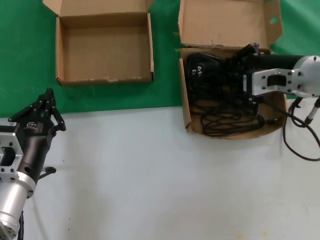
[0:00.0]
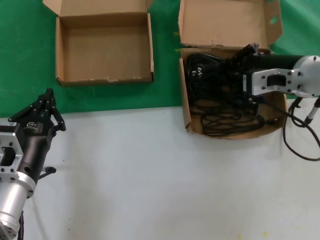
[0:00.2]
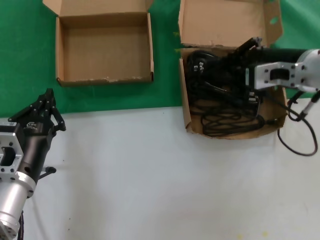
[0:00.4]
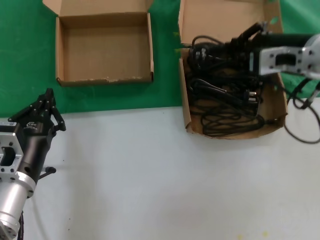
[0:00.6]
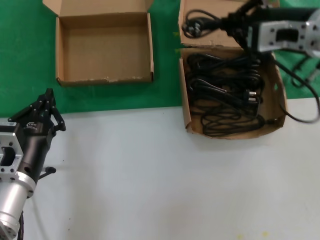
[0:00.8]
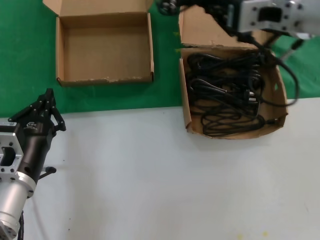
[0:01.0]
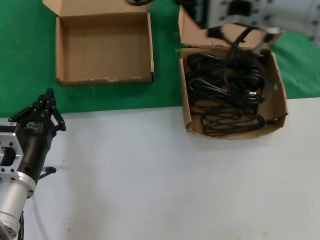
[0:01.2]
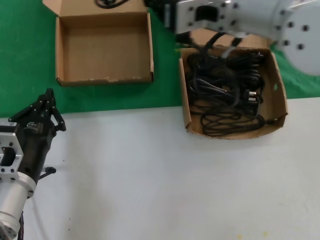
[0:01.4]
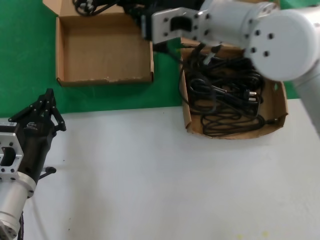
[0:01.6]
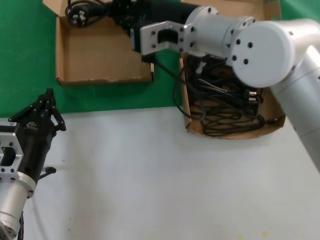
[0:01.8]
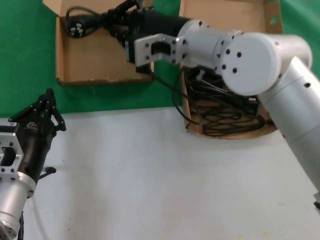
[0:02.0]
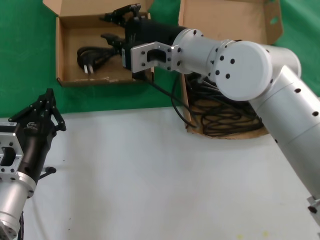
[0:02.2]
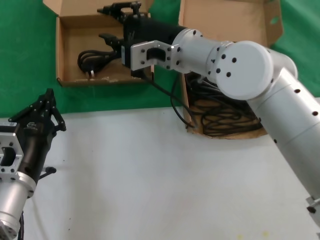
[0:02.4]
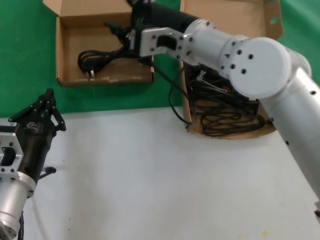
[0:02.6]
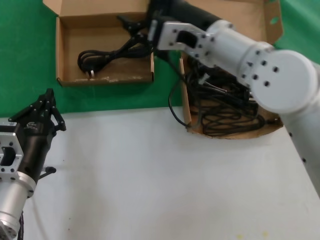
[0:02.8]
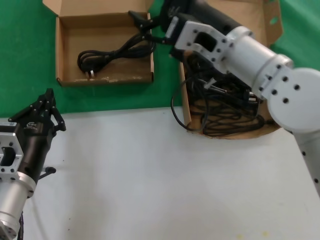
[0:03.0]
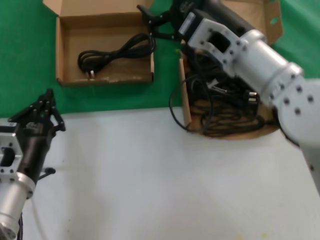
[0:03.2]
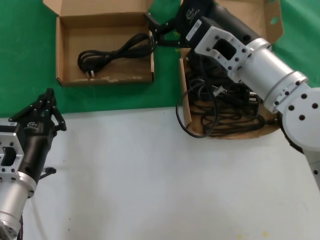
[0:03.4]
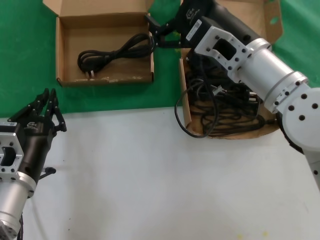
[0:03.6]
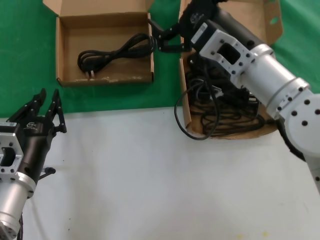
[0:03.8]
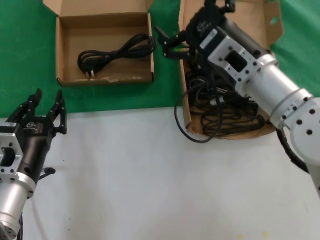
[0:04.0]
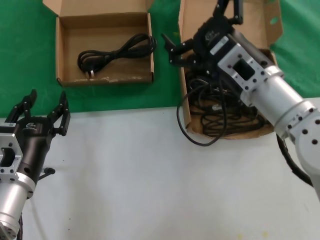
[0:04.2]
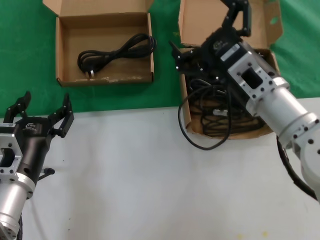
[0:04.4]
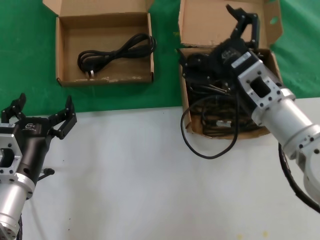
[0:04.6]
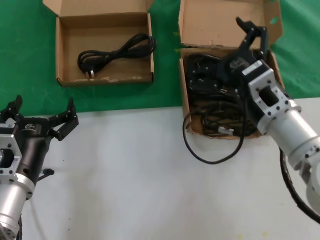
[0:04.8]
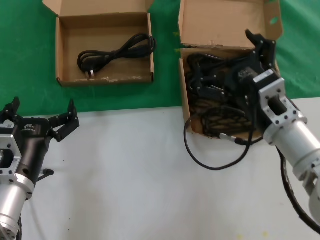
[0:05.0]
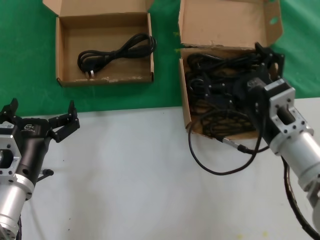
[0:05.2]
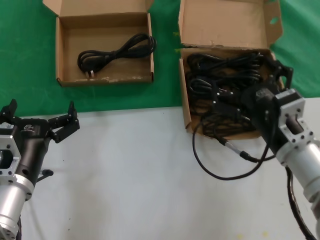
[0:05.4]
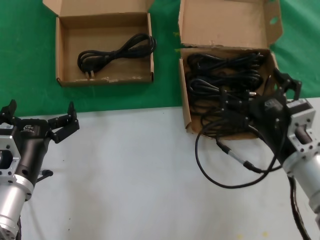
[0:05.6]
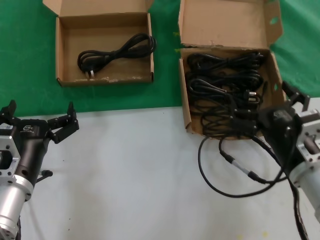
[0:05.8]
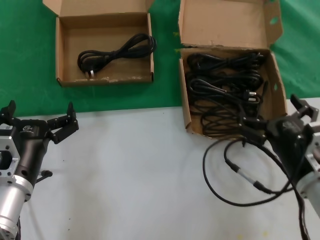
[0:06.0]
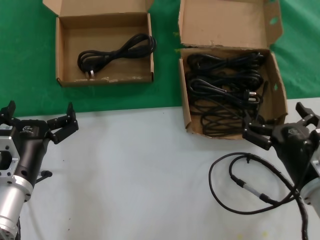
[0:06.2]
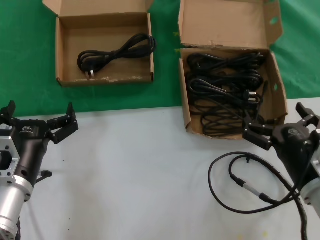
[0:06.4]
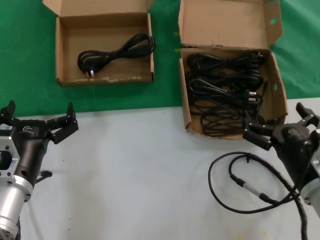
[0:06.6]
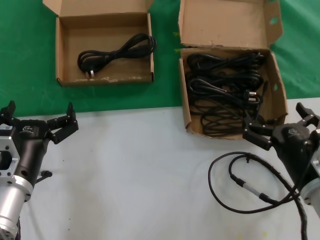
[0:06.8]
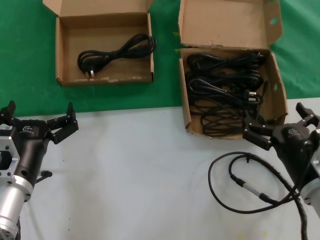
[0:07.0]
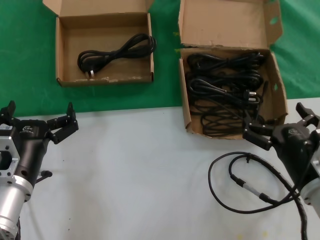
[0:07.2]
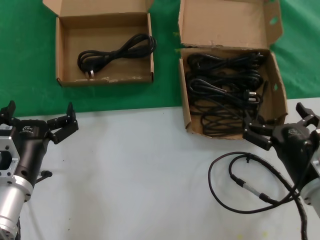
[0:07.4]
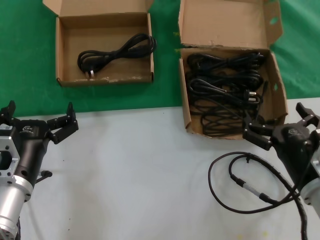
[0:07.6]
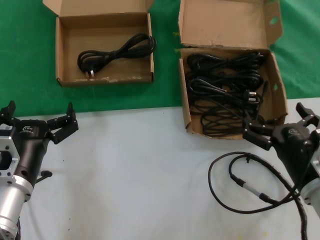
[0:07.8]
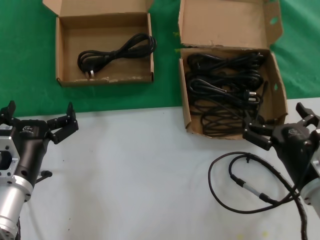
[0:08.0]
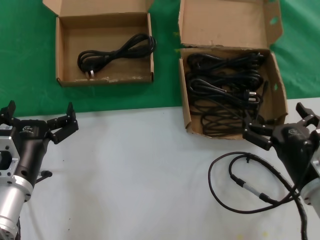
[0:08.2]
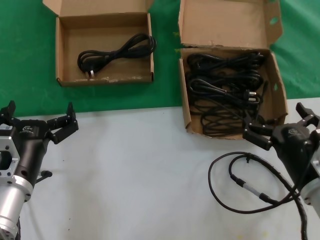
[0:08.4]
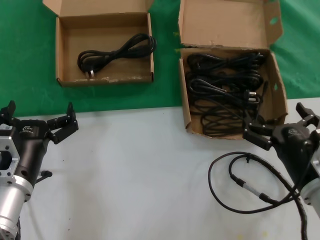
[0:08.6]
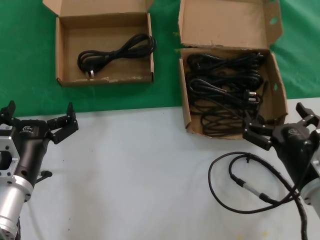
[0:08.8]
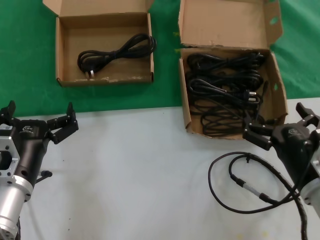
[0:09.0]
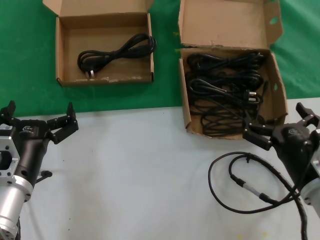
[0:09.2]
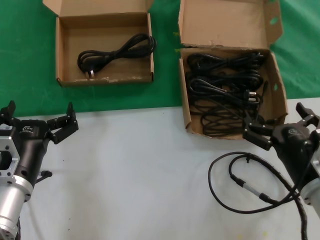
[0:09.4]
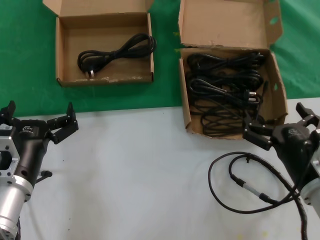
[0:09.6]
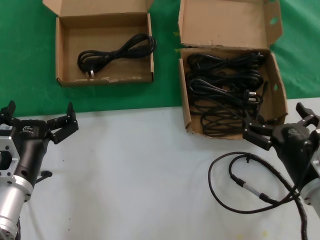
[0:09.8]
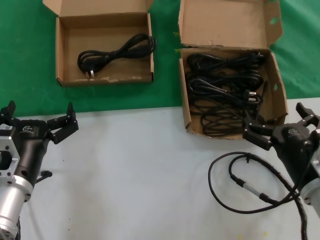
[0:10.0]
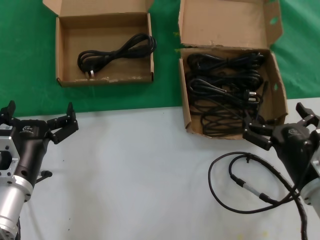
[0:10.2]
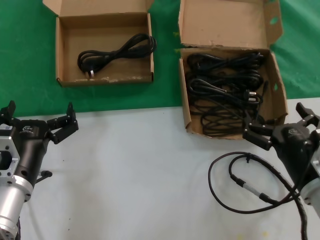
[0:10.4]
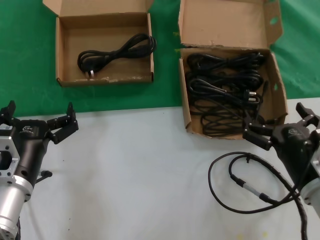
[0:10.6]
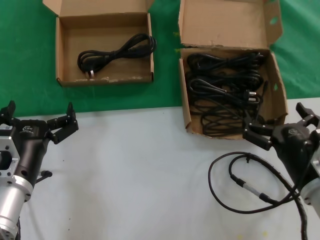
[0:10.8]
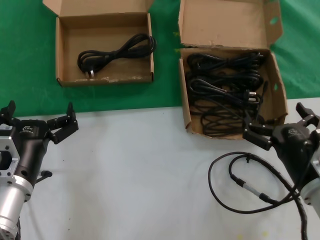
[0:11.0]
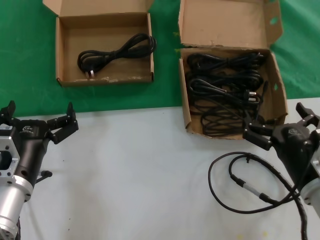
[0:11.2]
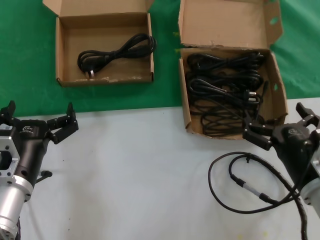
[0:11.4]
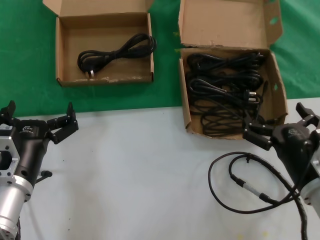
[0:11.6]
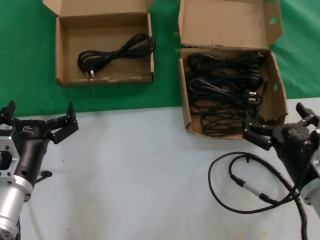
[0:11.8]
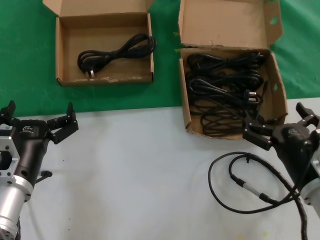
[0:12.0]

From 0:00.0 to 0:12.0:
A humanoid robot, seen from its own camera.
Task of the whole recording: take the parts from the box containing them and put them into an empty box.
Step, from 0:00.0 to 0:02.2: Place the data cable in the another box.
From 0:00.0 to 0:01.6: The right hand is displaced to the left and upward by some 20 cm.
From 0:01.6 to 0:03.0: The right hand shifts about 5 cm downward.
From 0:03.0 to 0:04.4: The right hand travels downward and to the right by approximately 10 cm.
From 0:04.4 to 0:06.0: The right hand moves downward, backward and to the right, about 15 cm.
From 0:06.0 to 0:07.6: The hands stay close to where they were, moving slightly.
From 0:07.6 to 0:12.0: Both hands stay put.

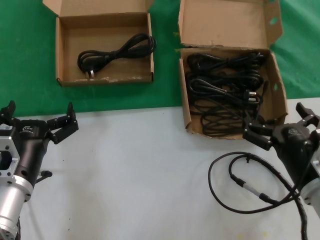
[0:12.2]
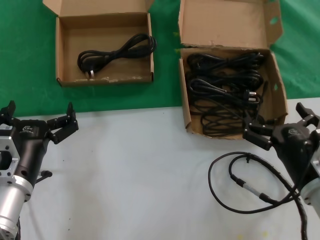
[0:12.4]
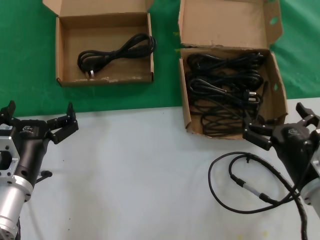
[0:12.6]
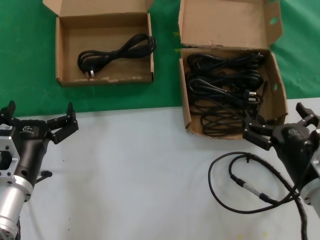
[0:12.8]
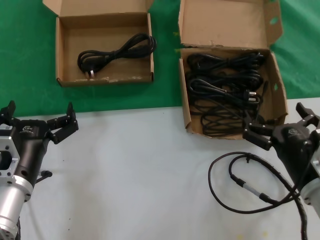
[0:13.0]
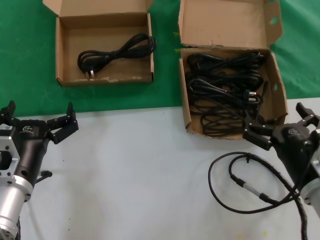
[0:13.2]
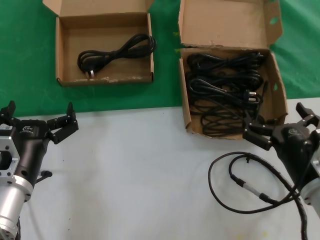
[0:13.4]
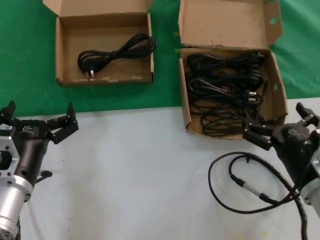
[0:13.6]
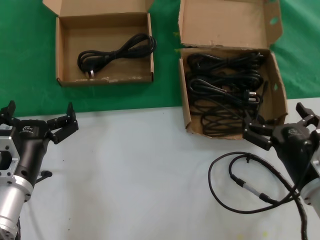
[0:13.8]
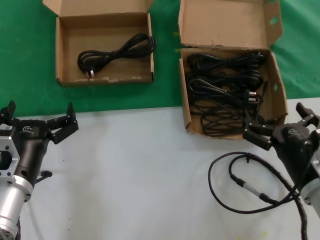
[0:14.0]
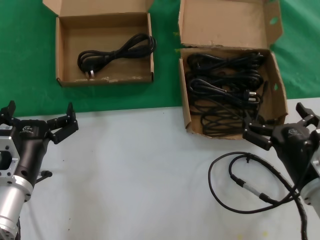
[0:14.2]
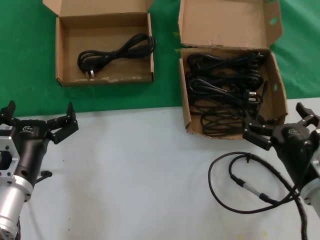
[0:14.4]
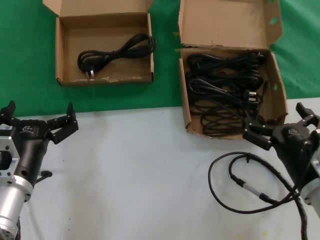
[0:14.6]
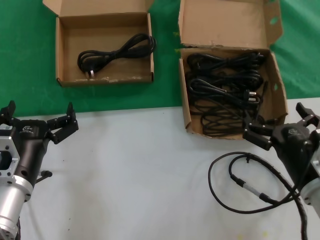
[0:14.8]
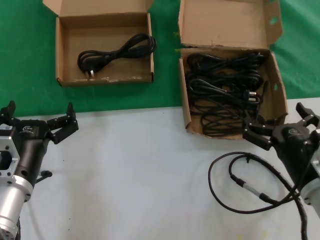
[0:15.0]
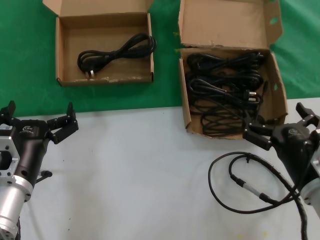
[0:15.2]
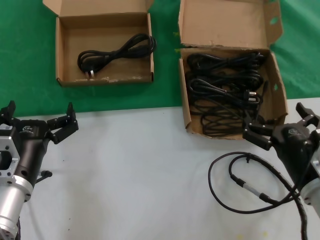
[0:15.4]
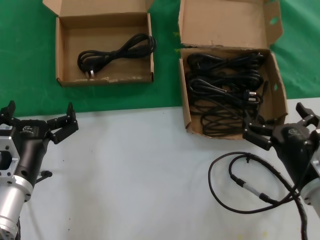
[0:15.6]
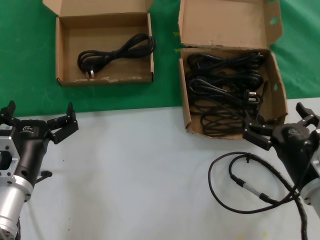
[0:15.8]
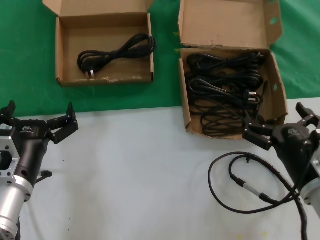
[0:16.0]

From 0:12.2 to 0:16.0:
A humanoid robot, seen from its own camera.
Task of the whole recording: take the parts from the box containing them and put them into an empty box.
From 0:12.2 to 0:16.0: Both hands stay put.

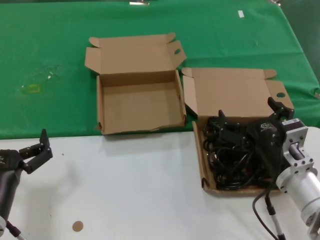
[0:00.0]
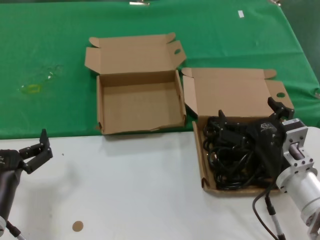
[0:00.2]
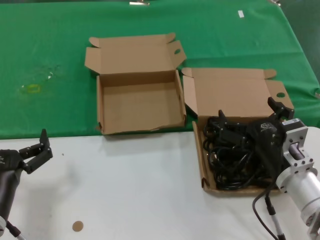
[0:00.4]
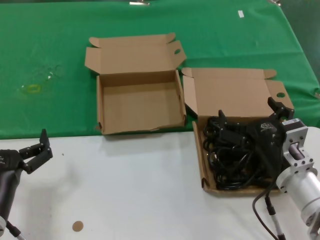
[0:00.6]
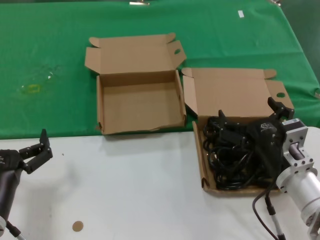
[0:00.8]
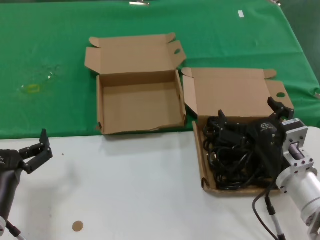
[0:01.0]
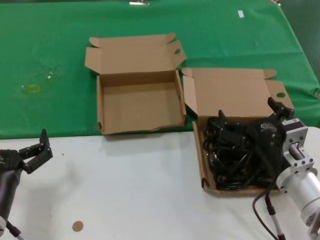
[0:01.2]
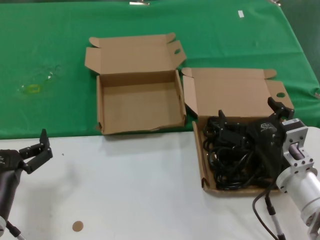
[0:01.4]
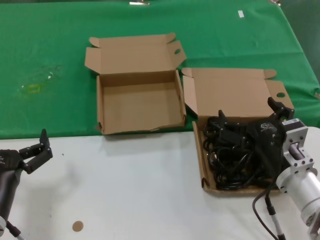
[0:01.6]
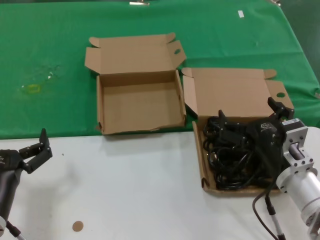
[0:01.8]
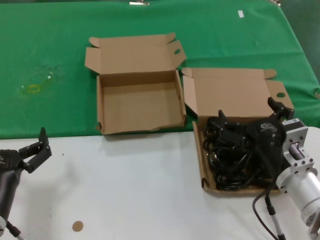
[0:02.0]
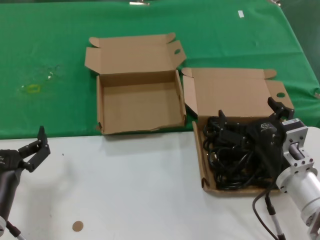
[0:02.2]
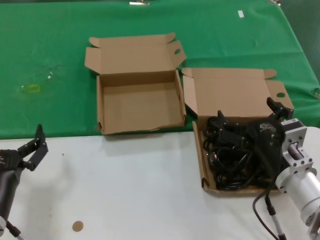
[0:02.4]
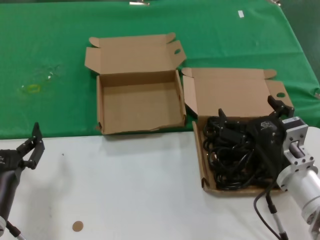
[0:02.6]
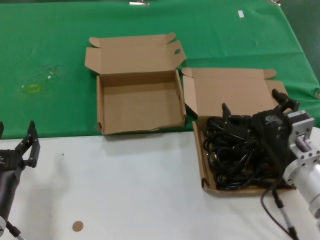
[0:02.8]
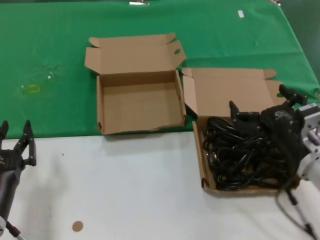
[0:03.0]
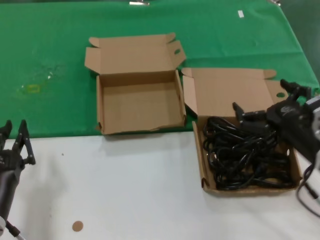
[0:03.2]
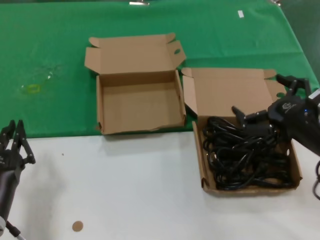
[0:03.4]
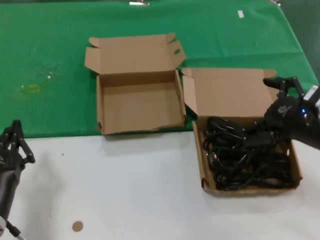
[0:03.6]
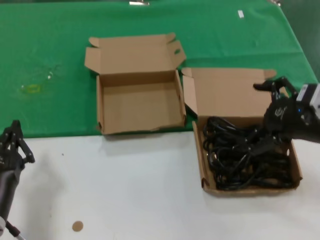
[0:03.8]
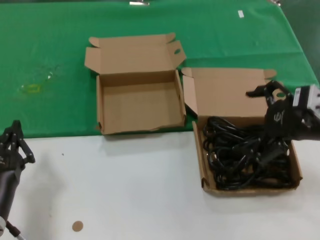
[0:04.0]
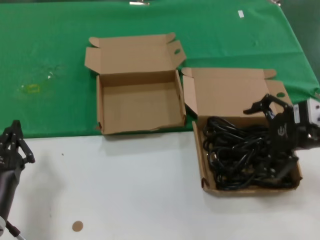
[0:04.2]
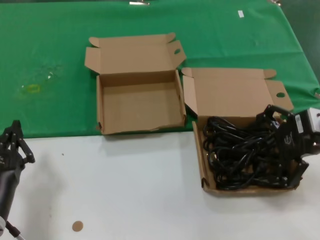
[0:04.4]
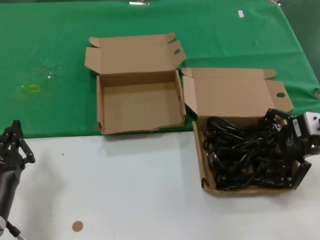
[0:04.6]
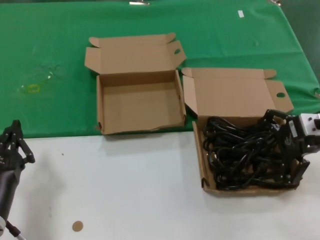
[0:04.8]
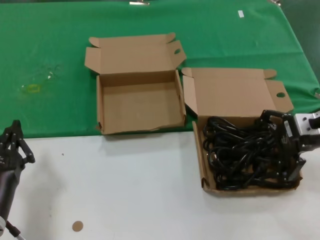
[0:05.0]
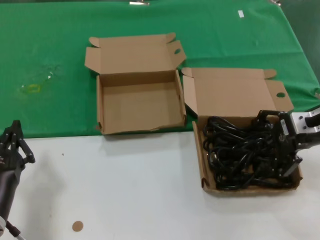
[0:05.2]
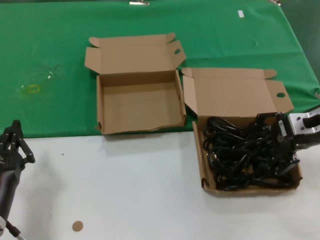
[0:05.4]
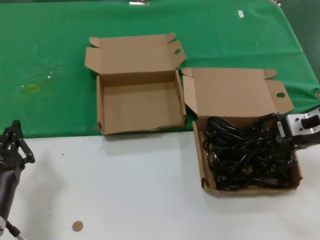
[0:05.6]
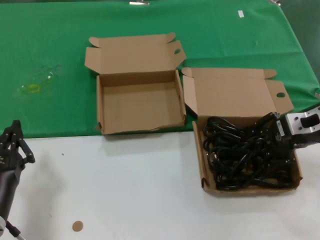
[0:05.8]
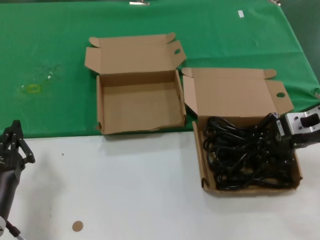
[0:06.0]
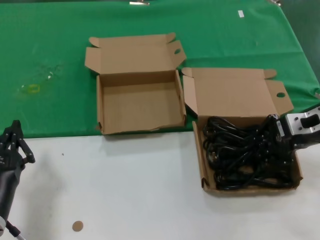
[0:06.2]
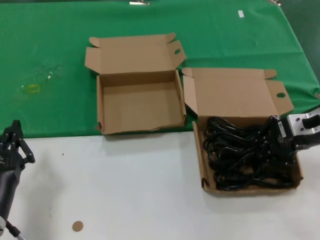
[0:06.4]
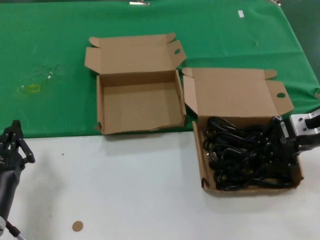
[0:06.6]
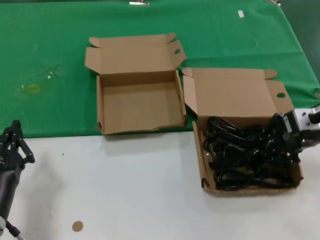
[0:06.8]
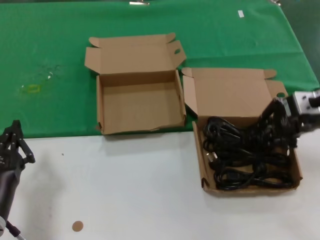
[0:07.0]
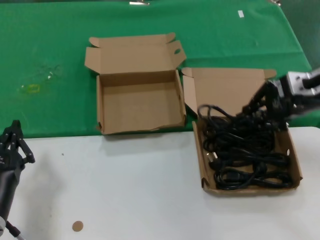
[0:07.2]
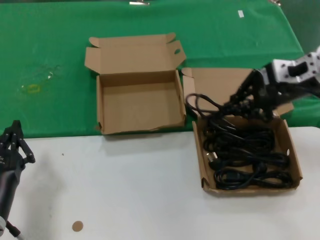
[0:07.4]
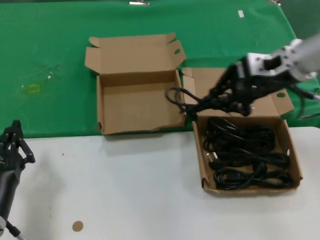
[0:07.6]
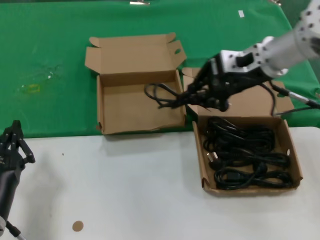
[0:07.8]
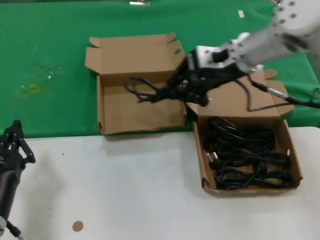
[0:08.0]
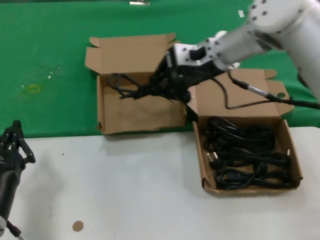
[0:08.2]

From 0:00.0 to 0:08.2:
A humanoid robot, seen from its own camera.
Task of the whole recording: take the parts from the box containing them and put them into an empty box.
Step, from 0:00.0 to 0:06.2: Grasp the data cable.
From 0:00.0 to 0:01.6: Both hands stay about where they are.
From 0:01.6 to 0:03.2: The right hand shifts approximately 10 cm to the right and upward.
From 0:03.2 to 0:05.0: The right hand goes about 15 cm forward, upward and to the right.
From 0:05.0 to 0:06.6: The hands stay close to where they were, moving slightly.
From 0:06.6 to 0:08.2: The right hand heads to the left, forward and upward, covering some 25 cm.
